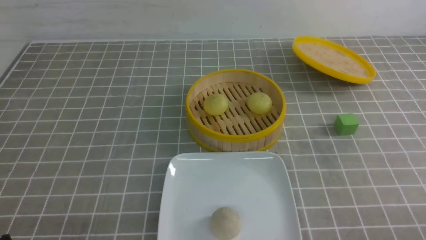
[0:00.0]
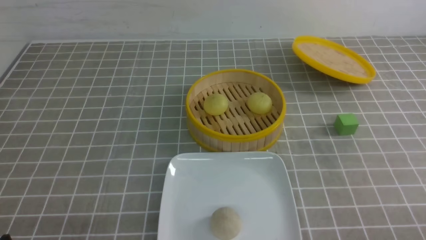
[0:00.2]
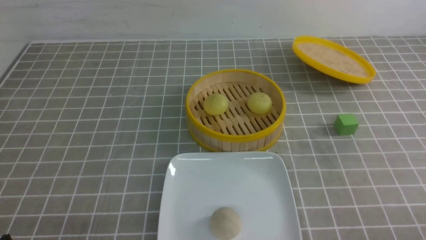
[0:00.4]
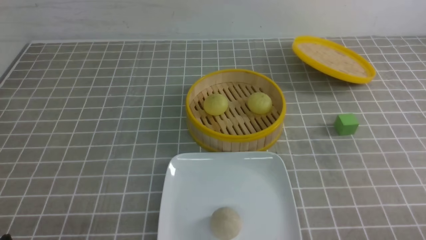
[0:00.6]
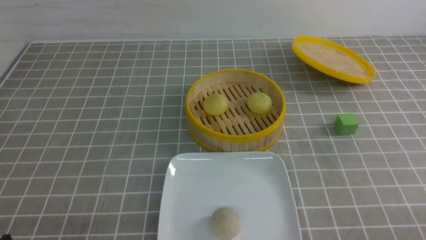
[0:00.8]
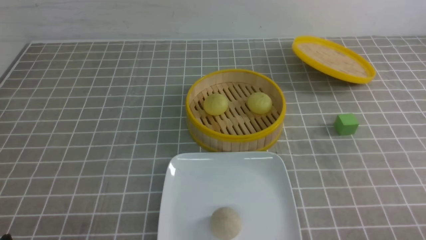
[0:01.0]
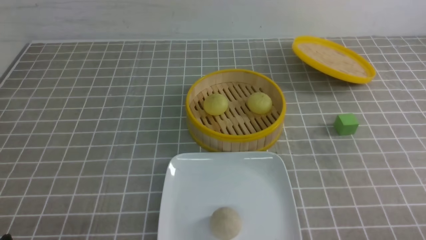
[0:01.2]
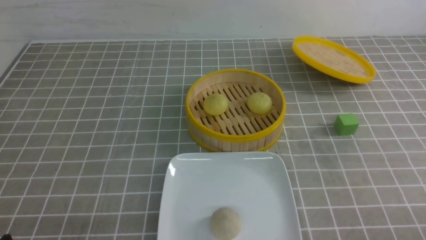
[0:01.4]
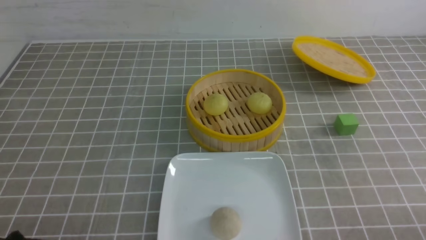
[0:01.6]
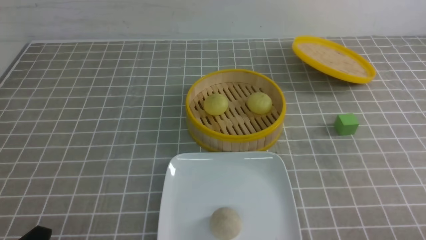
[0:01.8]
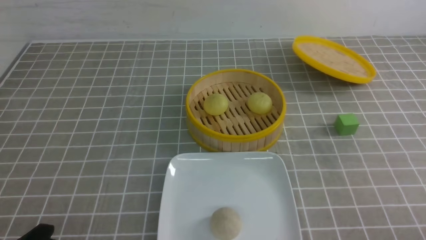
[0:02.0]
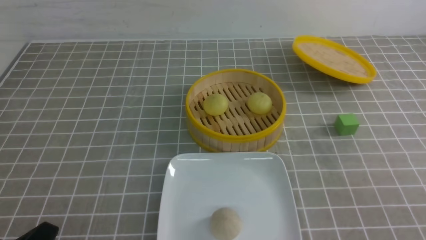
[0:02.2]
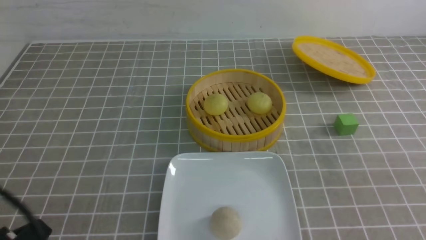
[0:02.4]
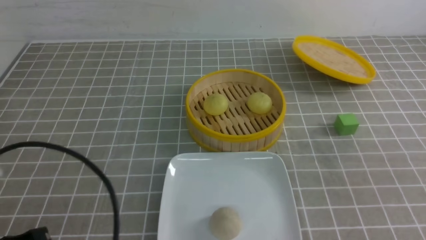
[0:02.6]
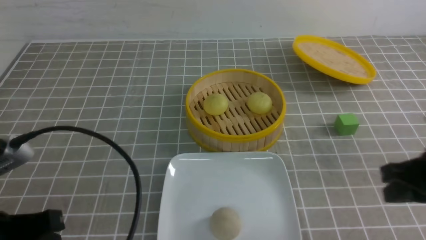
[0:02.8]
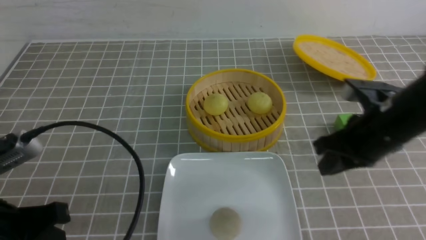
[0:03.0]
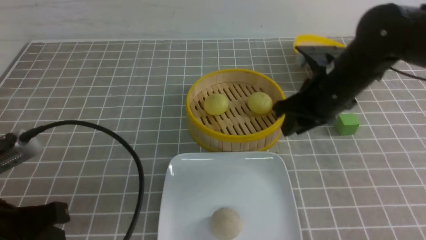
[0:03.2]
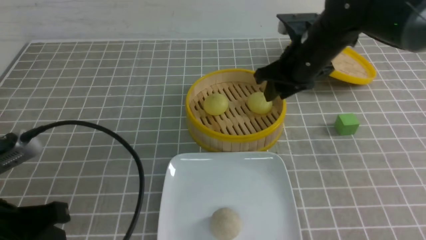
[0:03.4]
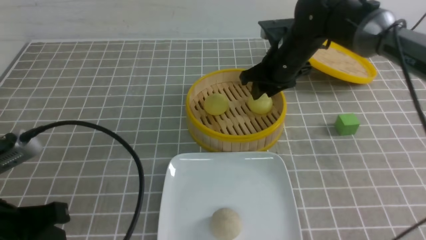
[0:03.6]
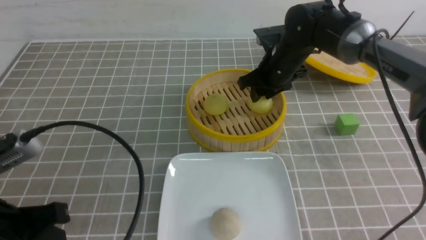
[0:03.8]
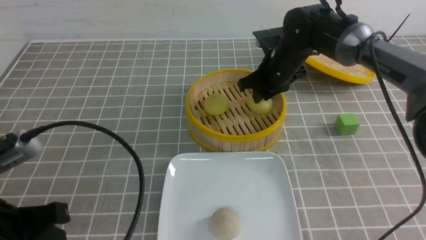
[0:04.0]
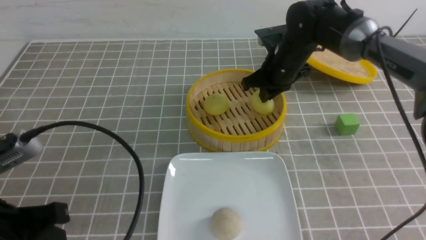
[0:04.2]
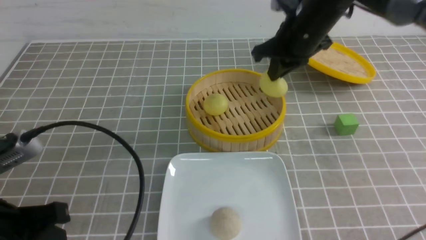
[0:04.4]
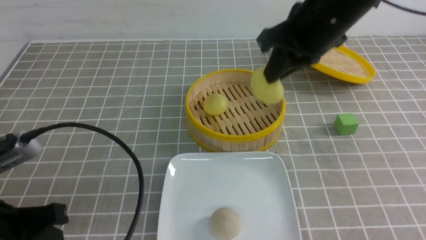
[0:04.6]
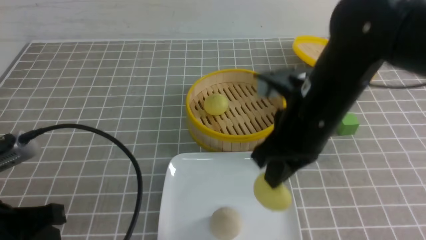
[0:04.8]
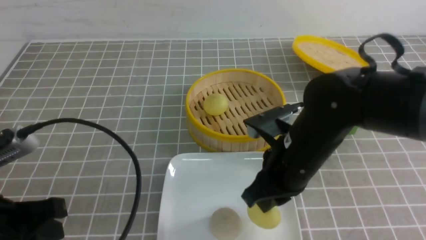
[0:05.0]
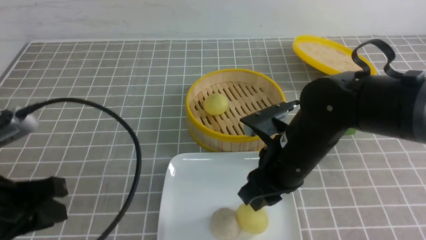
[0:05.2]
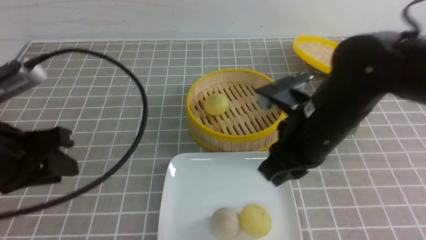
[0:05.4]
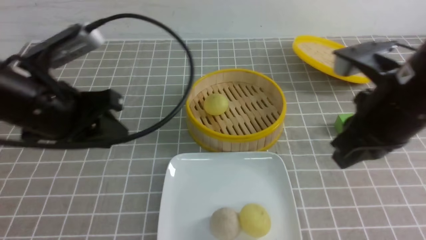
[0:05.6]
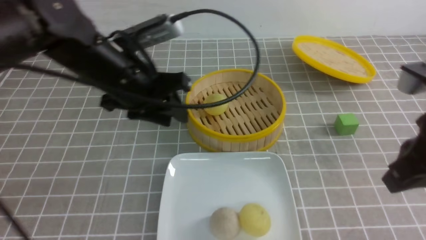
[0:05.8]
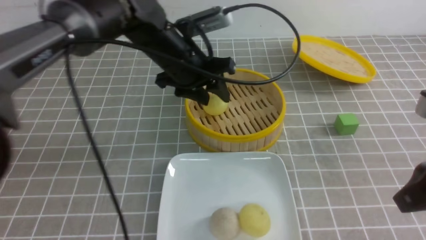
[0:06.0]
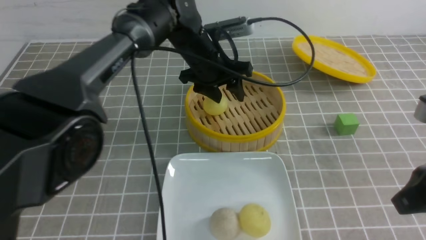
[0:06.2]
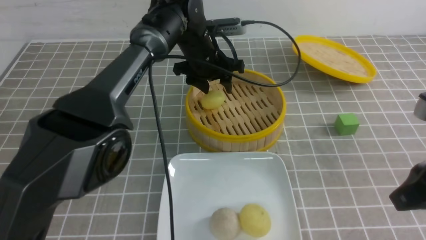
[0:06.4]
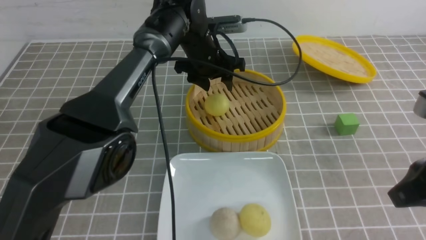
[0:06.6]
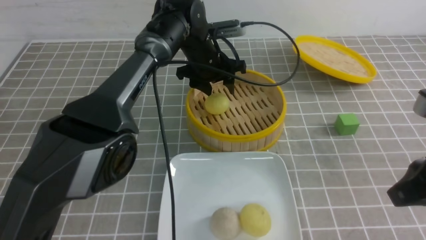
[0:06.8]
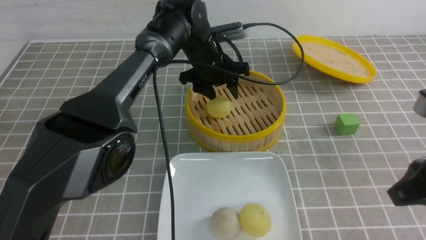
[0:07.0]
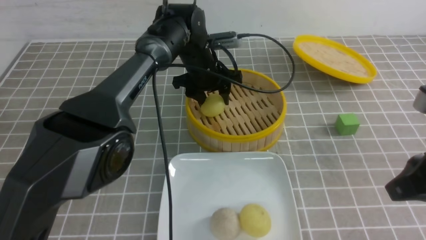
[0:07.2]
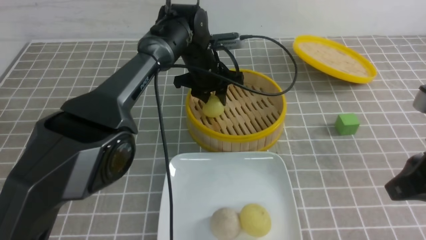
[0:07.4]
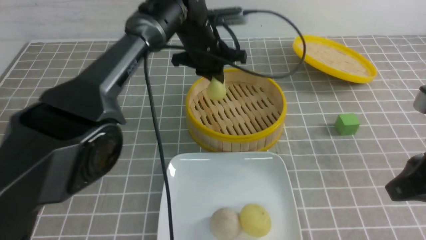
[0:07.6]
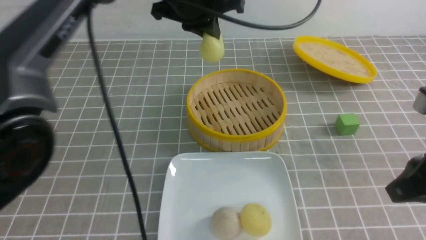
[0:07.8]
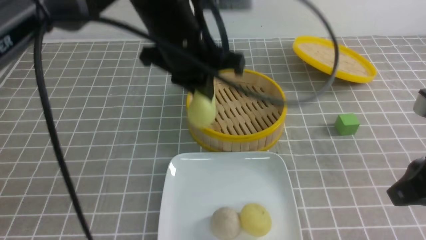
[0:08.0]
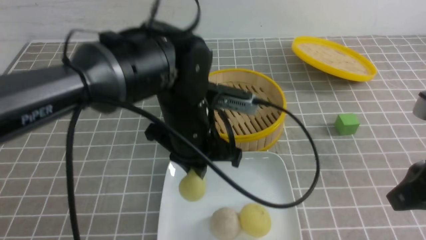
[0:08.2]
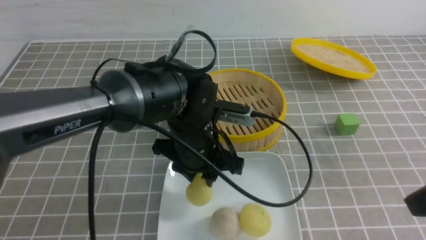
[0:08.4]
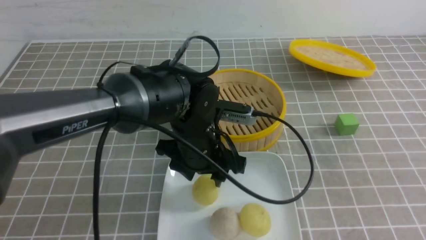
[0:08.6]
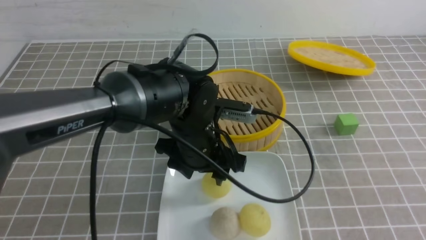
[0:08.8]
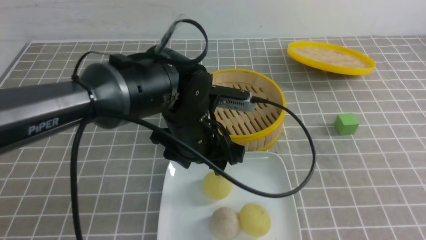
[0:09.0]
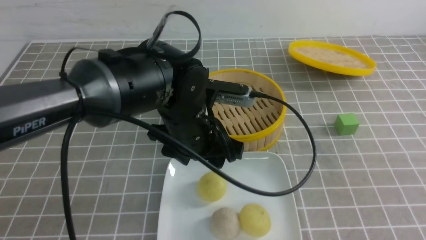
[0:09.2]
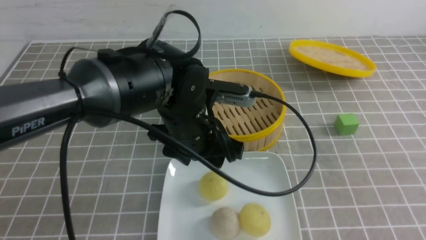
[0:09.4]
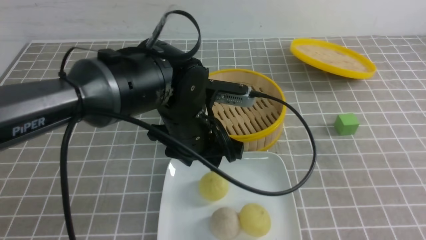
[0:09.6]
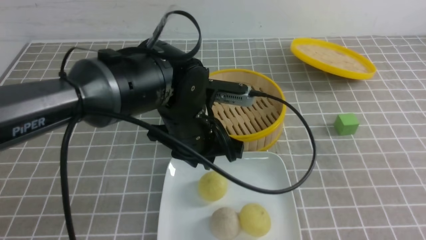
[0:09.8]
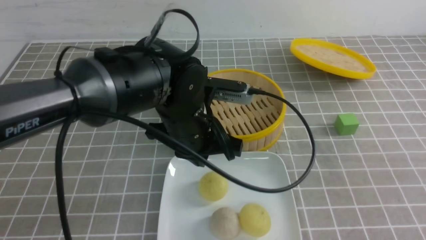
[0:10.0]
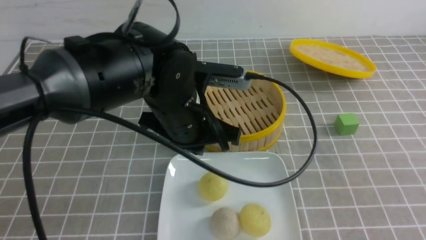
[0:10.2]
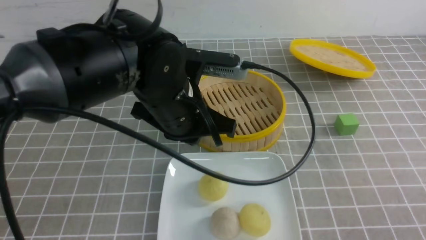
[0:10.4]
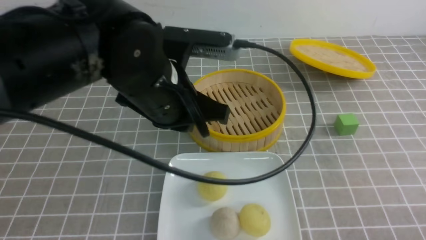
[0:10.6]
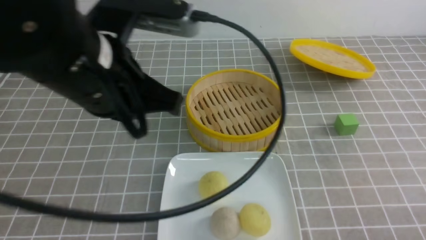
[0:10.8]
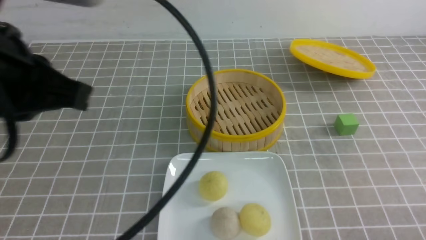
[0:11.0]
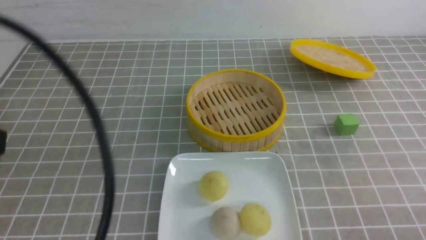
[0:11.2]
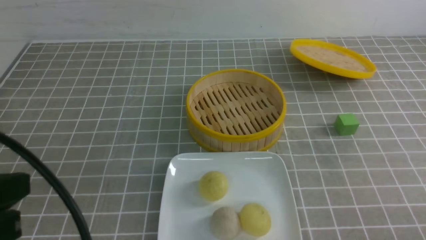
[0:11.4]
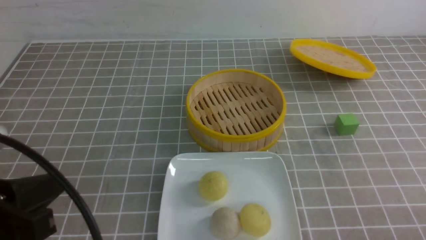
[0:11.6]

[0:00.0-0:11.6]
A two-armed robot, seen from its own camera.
Step, 0:00.0 to 0:04.2: use the right arm to grab the steamed stuffed bun that is closest to it.
Step, 0:04.4 to 0:05.0: use the right arm to put the steamed stuffed bun into the plate.
Step, 0:05.2 to 0:07.4: use the left arm to grab the steamed stuffed bun that is closest to it.
Step, 0:07.6 to 0:08.6: use the left arm to put the steamed stuffed bun into the plate.
0:01.4 to 0:02.8: The left gripper travels upward and forward by roughly 10 cm, and closes its fingers. Meanwhile the right gripper heads forward, upward and to the left, covering approximately 20 cm, and closes.
0:02.8 to 0:04.4: The right gripper shifts approximately 25 cm forward and to the left, and opens, then closes once more.
0:04.4 to 0:05.8: The right gripper is displaced backward and to the right by roughly 25 cm, and opens and closes again. The left gripper moves forward and to the right, roughly 25 cm, and opens its fingers.
0:05.8 to 0:07.2: The left gripper goes roughly 20 cm forward, to the right and downward.
0:07.2 to 0:08.8: Both grippers move backward, about 15 cm. The left gripper closes, then reopens.
0:08.8 to 0:10.2: The left gripper heads upward, covering about 5 cm, and closes up. The right gripper goes about 10 cm downward.
0:10.2 to 0:11.6: The right gripper heads downward, covering some 10 cm, while the left gripper travels backward and to the left by about 25 cm.

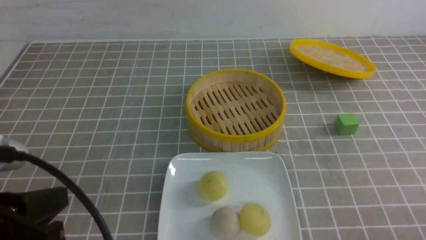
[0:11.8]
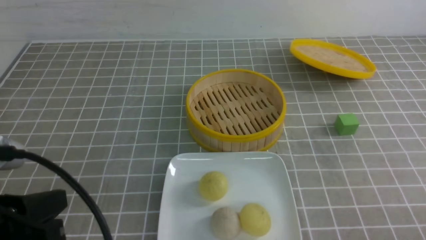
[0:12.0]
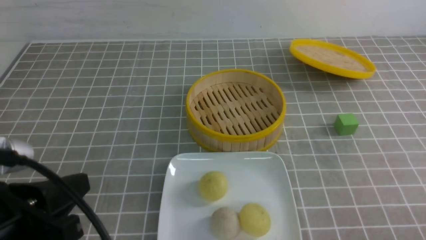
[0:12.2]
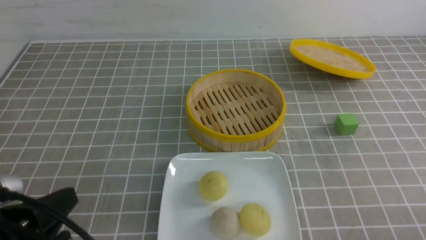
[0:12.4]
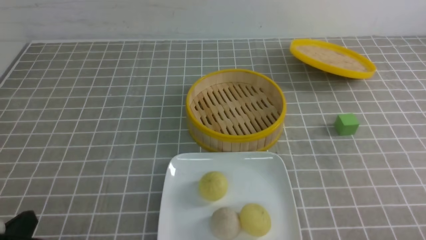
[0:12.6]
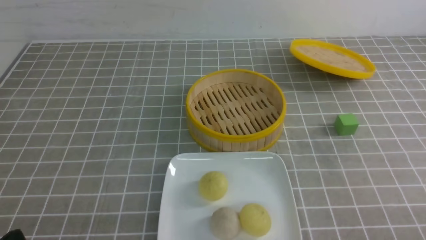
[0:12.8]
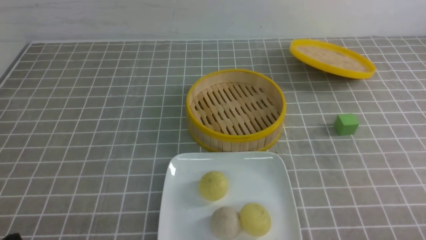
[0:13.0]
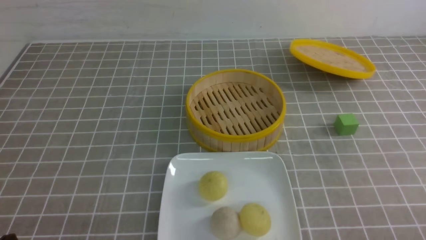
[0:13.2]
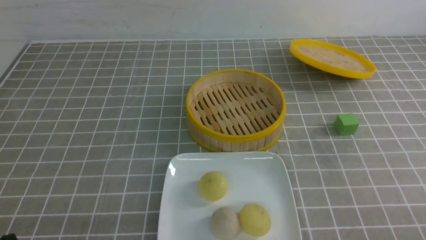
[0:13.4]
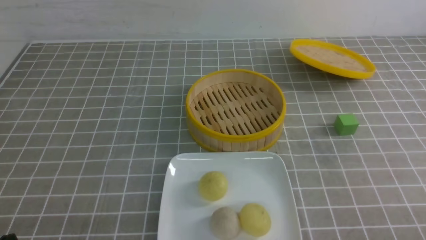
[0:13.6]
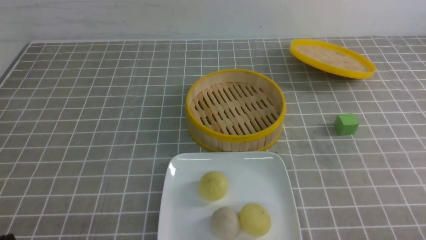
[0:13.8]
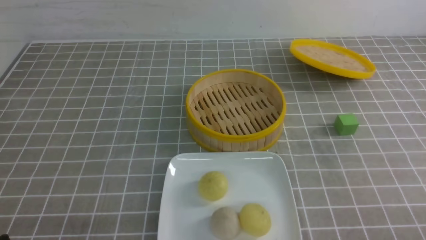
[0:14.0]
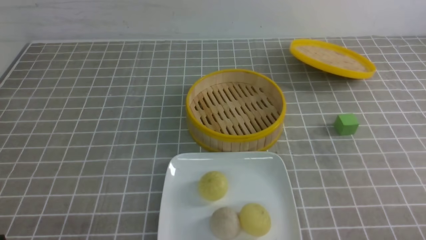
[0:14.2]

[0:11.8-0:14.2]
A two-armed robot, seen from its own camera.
0:11.8 to 0:13.0: The left gripper moves downward, about 15 cm.
